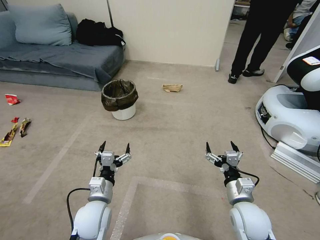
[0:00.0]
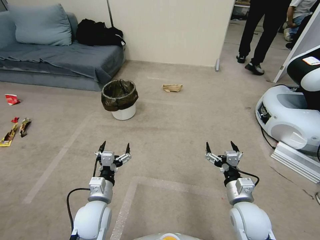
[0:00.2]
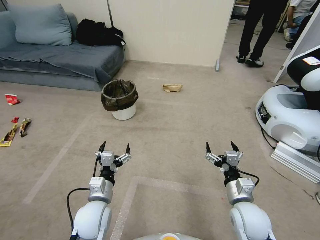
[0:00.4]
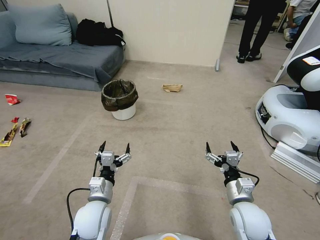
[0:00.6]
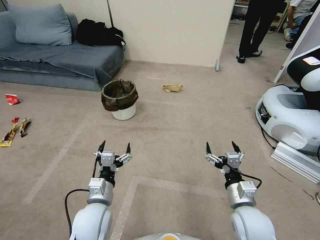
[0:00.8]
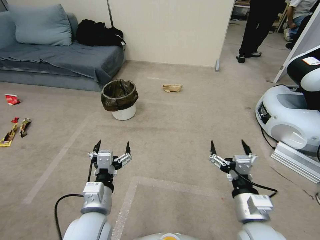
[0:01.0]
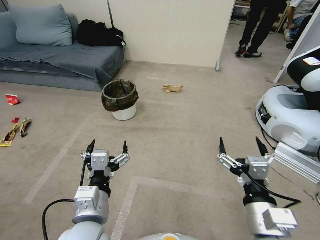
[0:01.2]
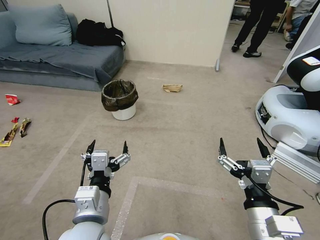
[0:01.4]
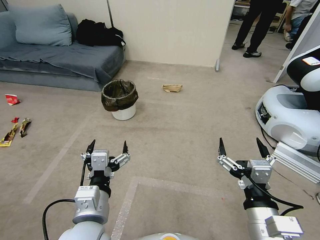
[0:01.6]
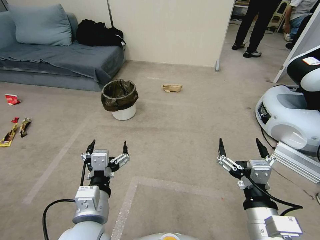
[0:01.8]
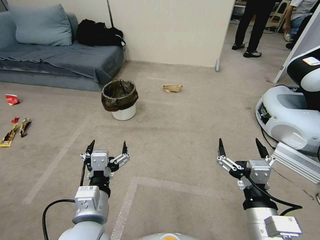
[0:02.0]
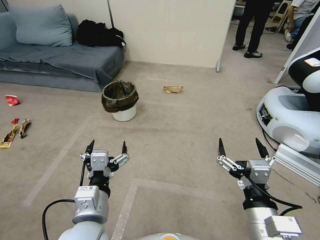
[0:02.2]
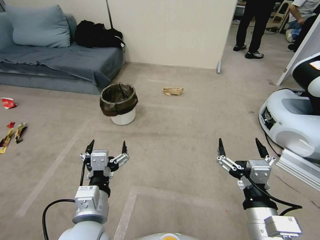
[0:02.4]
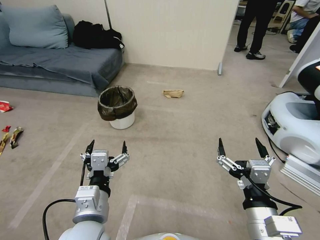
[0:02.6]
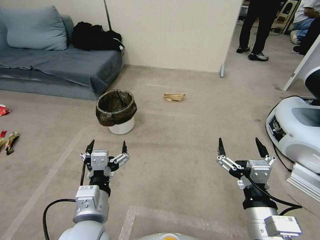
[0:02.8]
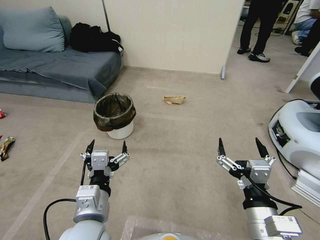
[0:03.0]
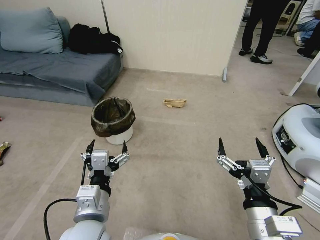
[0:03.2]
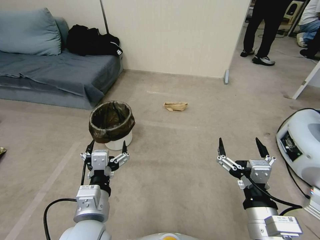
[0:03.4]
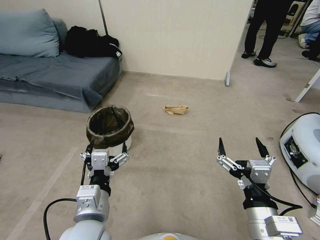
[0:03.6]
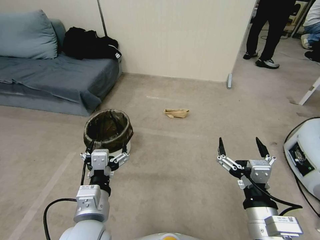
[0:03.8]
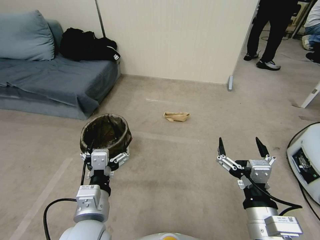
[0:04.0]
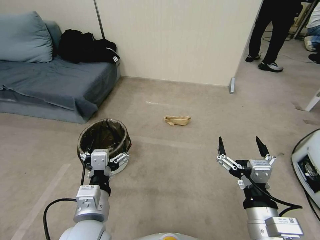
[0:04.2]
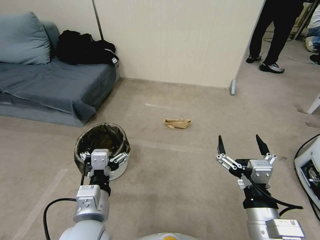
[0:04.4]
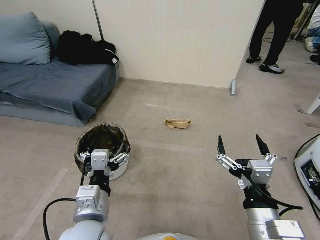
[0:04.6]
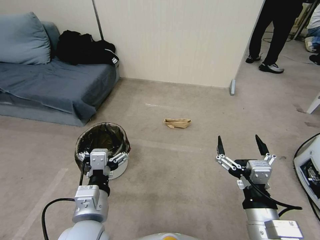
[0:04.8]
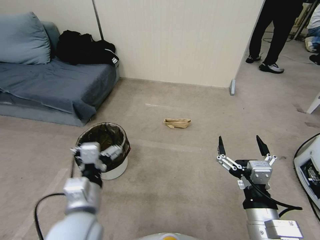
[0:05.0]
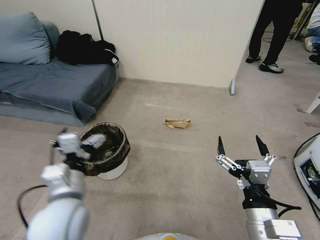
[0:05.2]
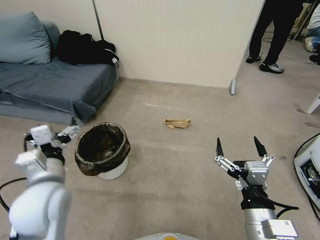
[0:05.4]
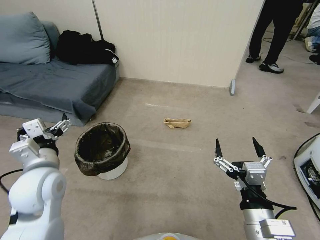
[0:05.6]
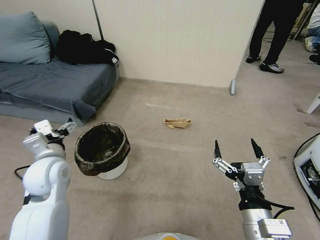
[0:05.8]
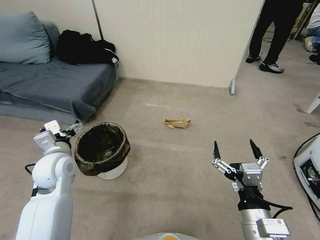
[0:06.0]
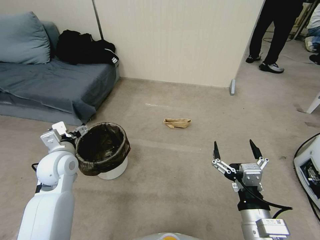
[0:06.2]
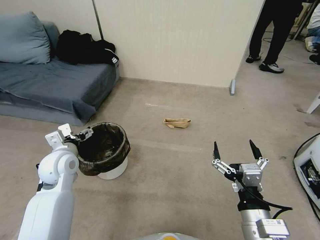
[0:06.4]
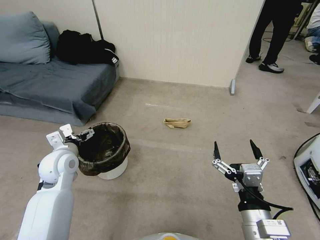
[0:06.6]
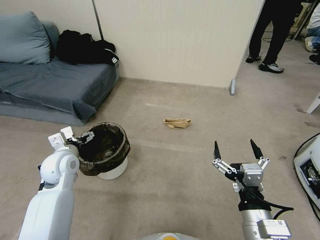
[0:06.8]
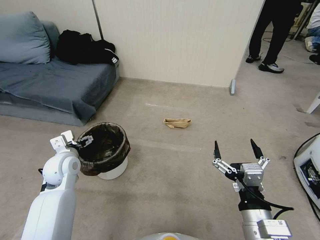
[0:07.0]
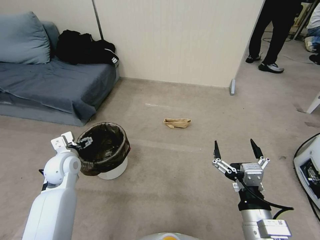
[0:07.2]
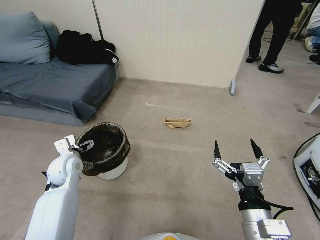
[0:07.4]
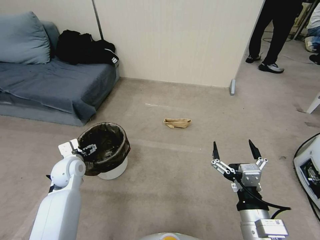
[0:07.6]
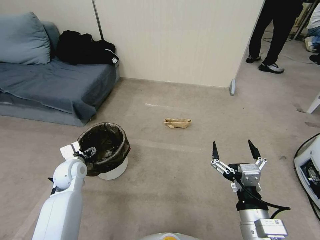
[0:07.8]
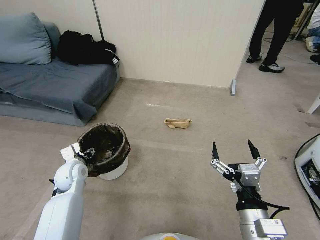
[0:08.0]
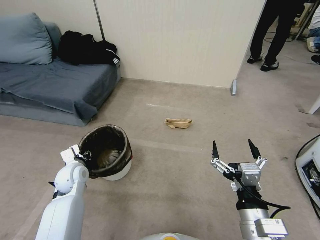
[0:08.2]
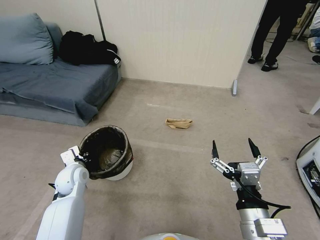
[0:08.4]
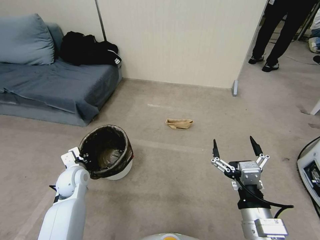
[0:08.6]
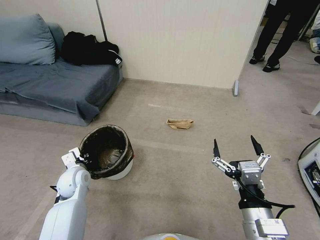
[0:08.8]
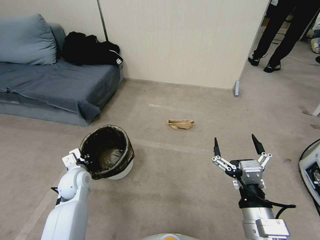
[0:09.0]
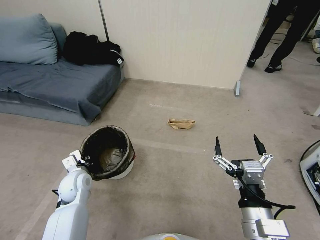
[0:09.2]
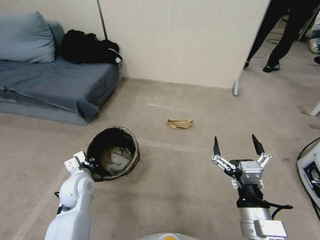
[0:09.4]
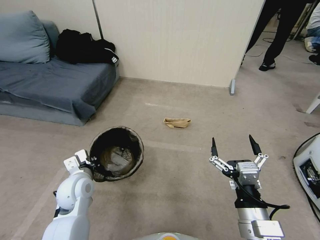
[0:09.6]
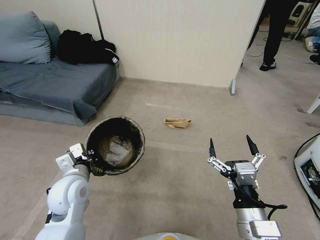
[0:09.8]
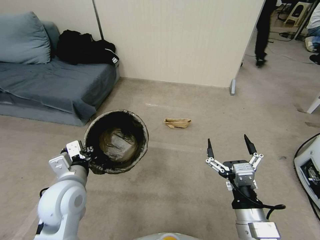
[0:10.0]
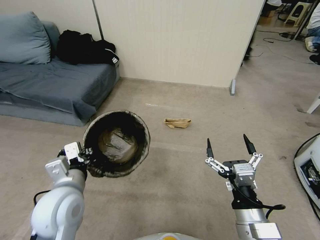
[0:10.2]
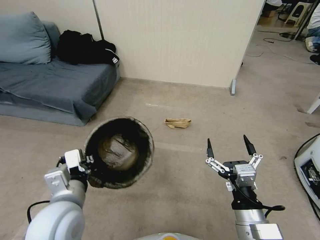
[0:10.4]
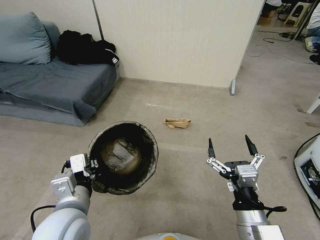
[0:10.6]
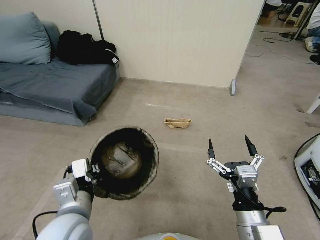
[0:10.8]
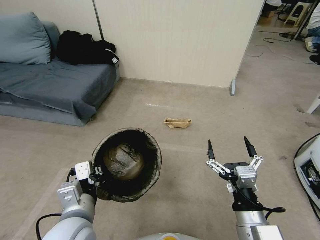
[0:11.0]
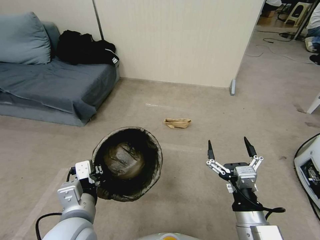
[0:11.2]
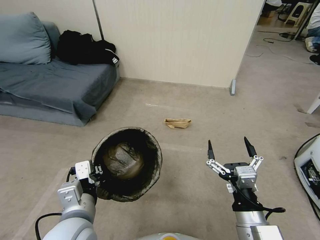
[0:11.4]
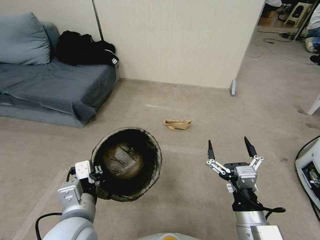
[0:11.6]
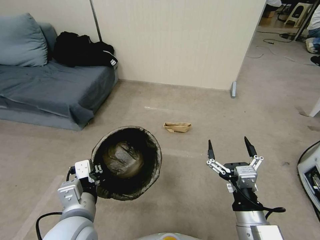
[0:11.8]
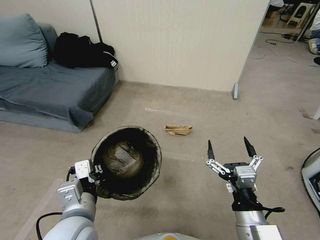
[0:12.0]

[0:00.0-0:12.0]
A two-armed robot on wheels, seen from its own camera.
Task of the whole recording: Pick up the trash bin, then pick up the garbage from the floor and place it into the trash bin.
0:04.4 to 0:06.0: The left gripper goes some 20 cm forward and to the left.
0:06.0 to 0:07.6: The left gripper moves downward, about 10 cm.
0:07.6 to 0:09.0: The left gripper ends up roughly 5 cm from where it was, and closes.
0:09.0 to 0:10.4: The left gripper goes some 25 cm upward, backward and to the right.
0:10.4 to 0:12.0: The grippers stay close to where they were, moving slightly.

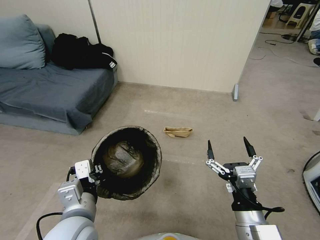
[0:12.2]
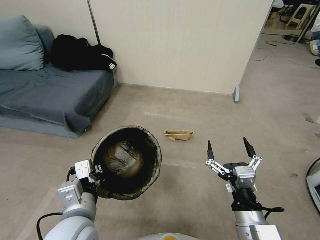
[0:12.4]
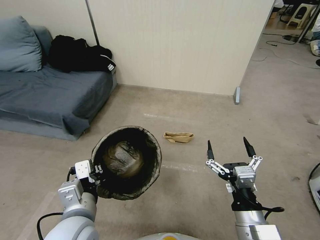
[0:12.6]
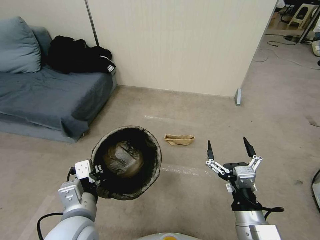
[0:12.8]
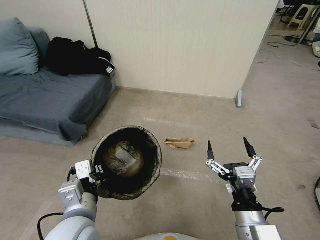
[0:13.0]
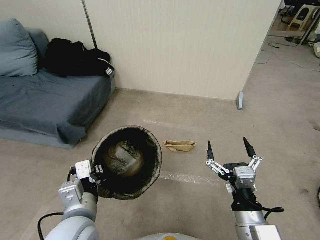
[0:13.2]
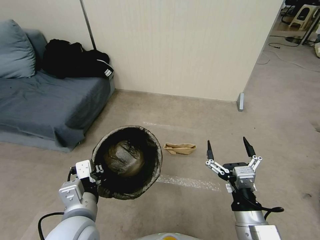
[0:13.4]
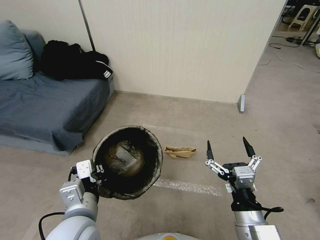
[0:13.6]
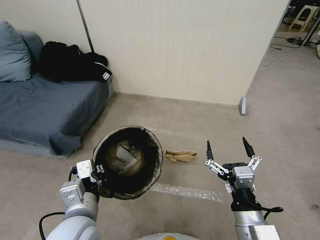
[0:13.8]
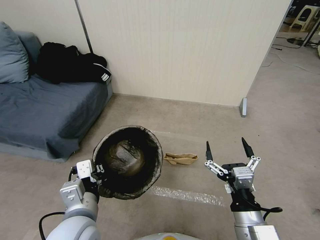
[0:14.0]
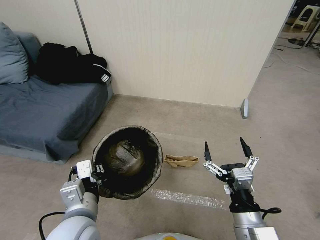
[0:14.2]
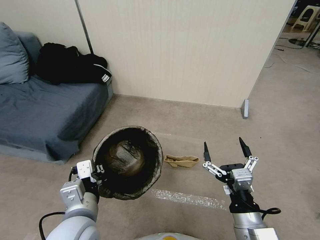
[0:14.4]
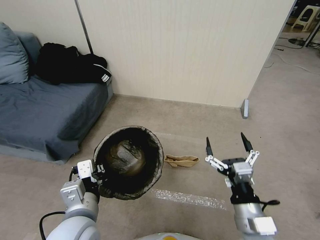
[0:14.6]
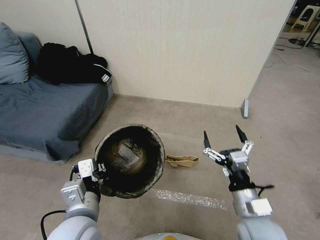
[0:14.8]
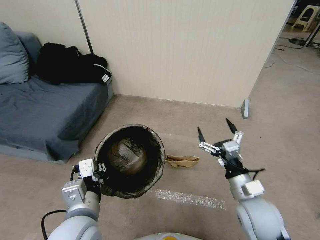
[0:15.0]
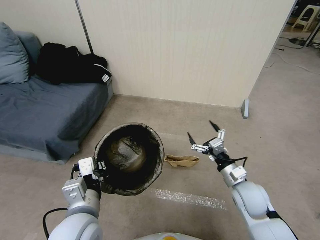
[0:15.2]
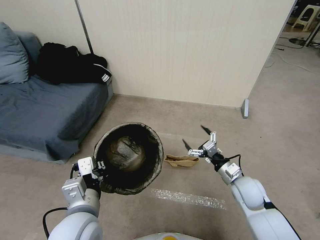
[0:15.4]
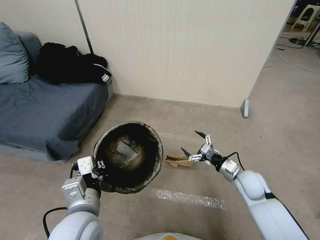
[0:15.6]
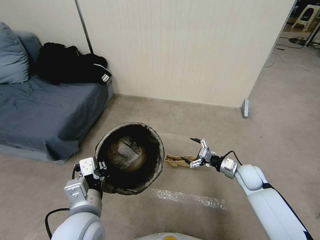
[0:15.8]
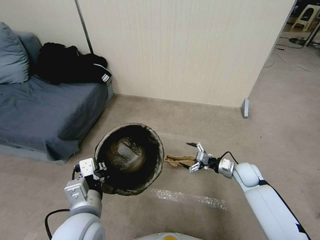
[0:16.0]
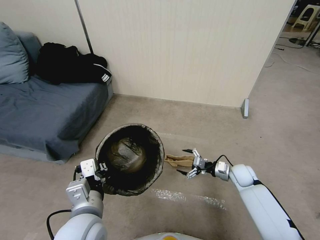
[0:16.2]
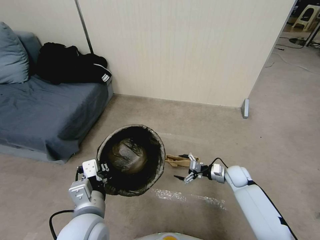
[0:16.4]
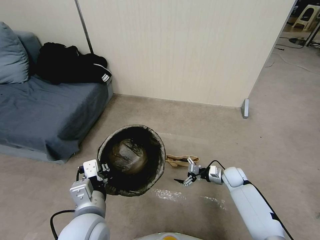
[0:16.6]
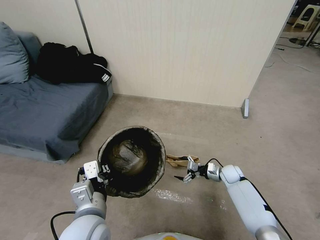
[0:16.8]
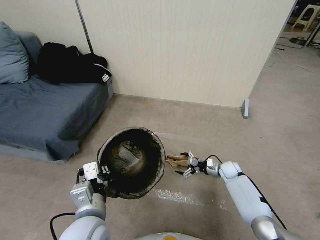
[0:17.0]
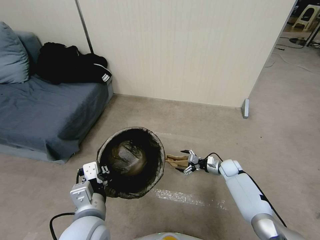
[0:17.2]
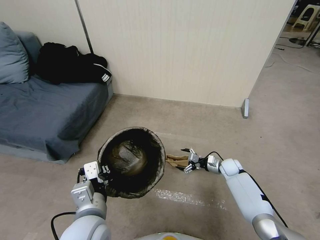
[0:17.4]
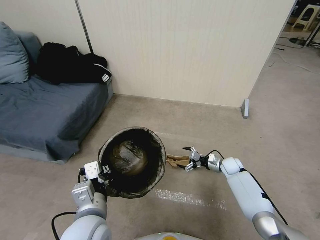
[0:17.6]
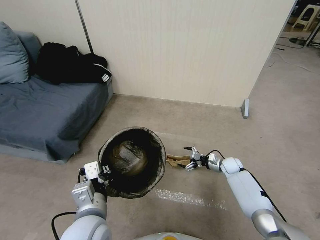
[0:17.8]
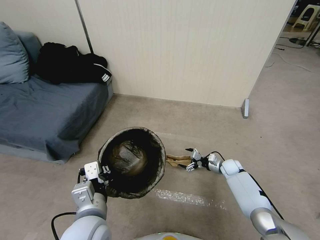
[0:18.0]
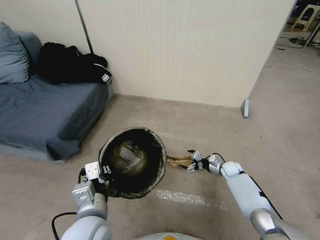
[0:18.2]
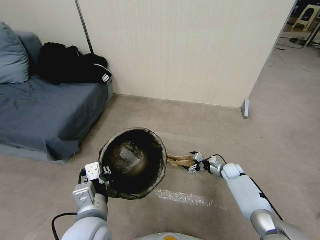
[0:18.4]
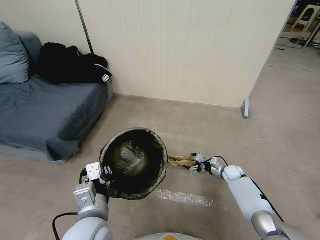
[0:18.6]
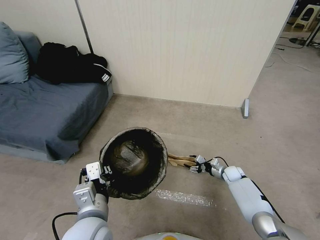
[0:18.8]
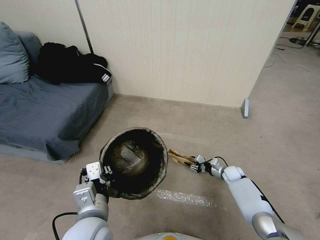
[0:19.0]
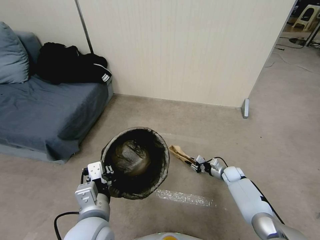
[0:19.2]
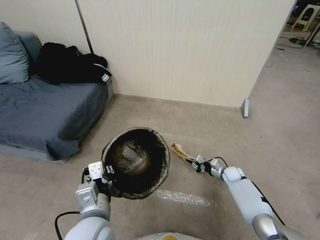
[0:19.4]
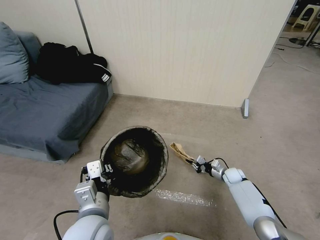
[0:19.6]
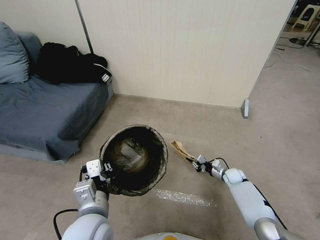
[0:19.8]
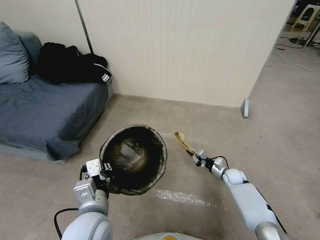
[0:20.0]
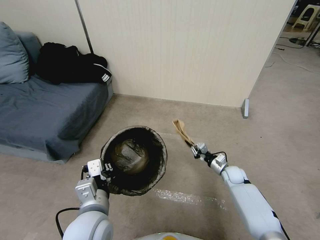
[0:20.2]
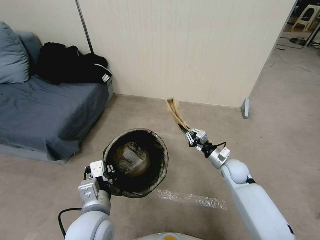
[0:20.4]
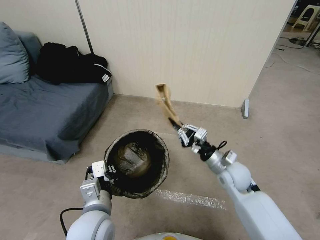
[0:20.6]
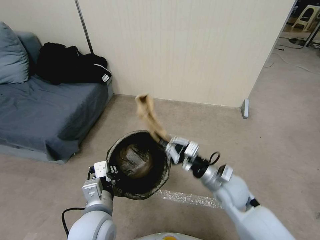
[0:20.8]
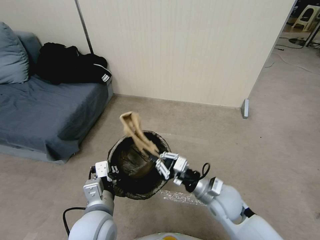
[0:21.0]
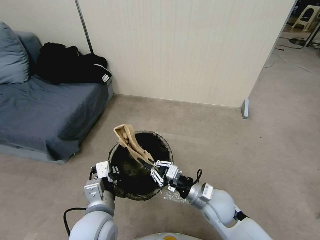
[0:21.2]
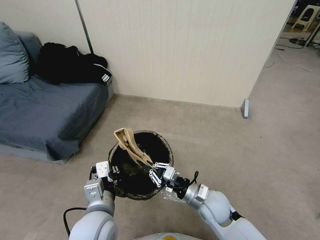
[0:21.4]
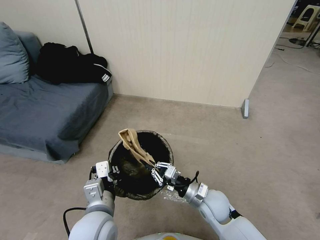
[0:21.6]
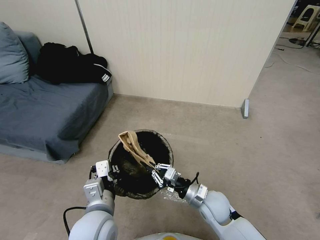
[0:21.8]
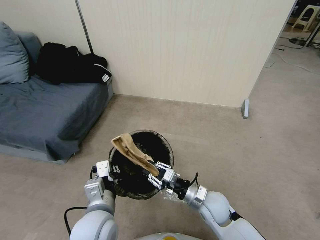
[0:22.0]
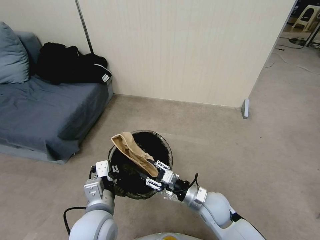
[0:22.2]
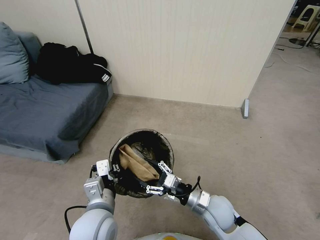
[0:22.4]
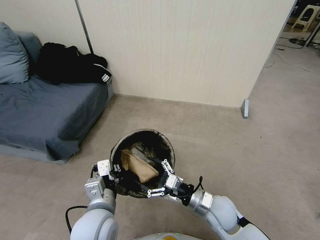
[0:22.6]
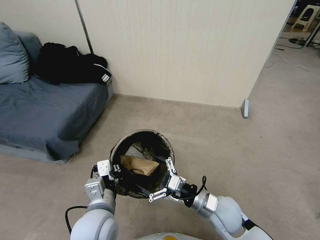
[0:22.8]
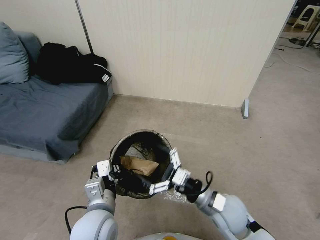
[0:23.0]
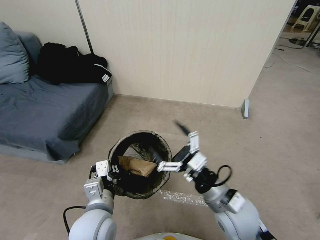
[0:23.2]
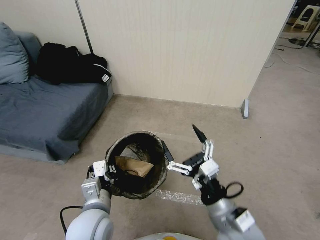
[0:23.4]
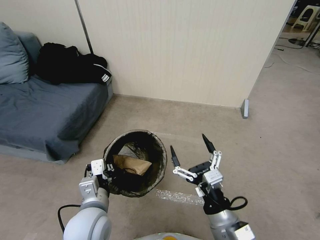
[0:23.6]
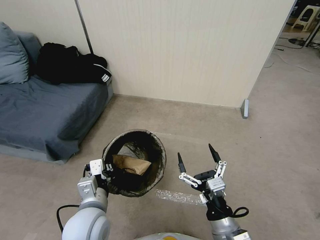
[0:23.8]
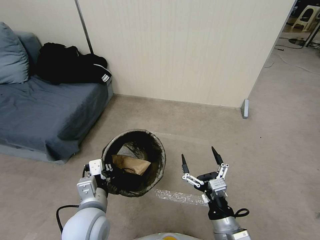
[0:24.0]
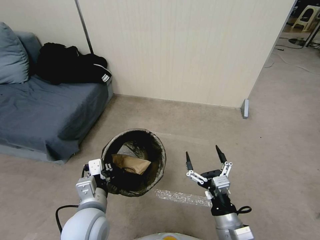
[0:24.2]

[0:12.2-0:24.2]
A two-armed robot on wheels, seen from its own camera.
Task of the whole recording: Pick up the trash bin, then pick up the garbage from the floor and place it into the trash bin.
0:13.8 to 0:15.2: The right gripper goes some 20 cm forward, downward and to the right.
0:15.2 to 0:16.6: The right gripper moves downward and forward, approximately 20 cm.
0:16.6 to 0:18.2: The right gripper moves approximately 5 cm.
0:18.2 to 0:19.8: The right gripper closes its fingers.
0:19.8 to 0:21.2: The right gripper shifts approximately 30 cm upward, to the left and backward.
0:21.2 to 0:22.6: The right gripper opens.
0:22.6 to 0:24.2: The right gripper shifts approximately 10 cm backward.
